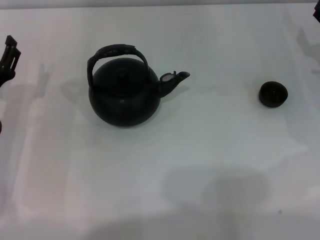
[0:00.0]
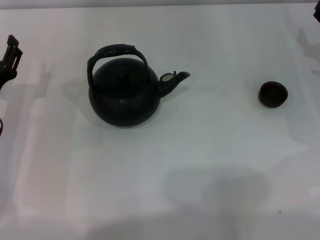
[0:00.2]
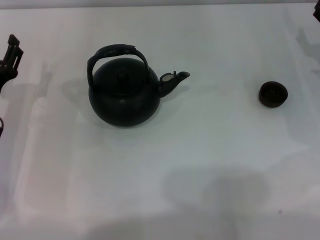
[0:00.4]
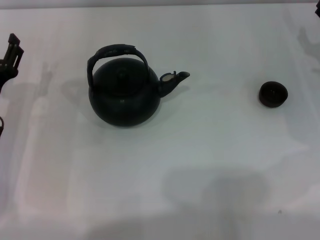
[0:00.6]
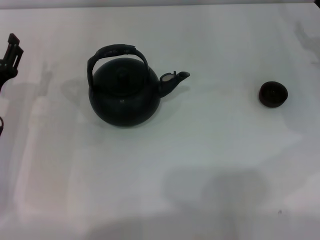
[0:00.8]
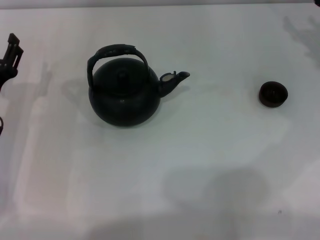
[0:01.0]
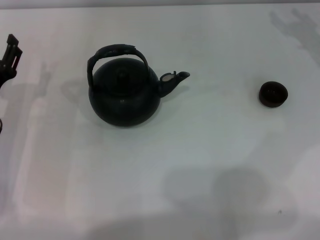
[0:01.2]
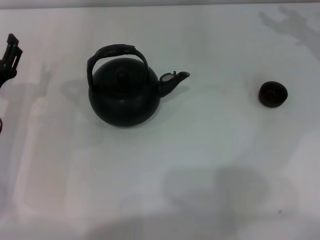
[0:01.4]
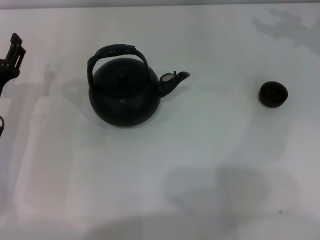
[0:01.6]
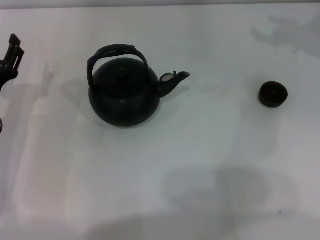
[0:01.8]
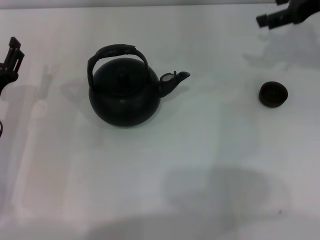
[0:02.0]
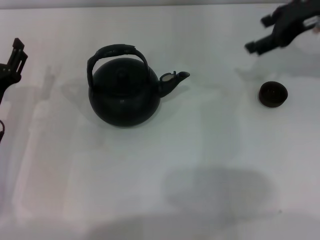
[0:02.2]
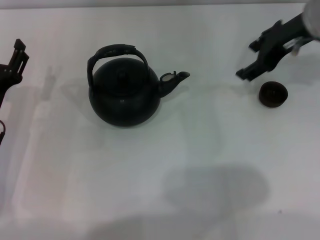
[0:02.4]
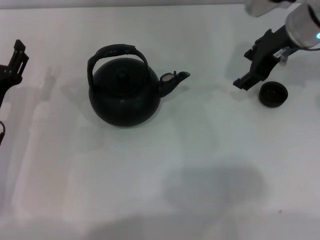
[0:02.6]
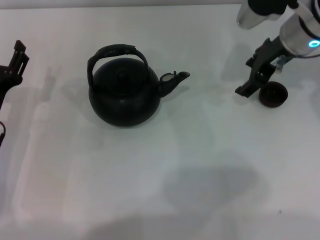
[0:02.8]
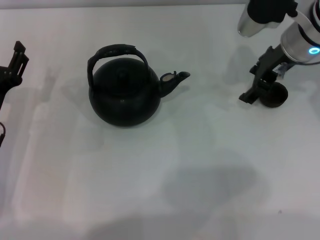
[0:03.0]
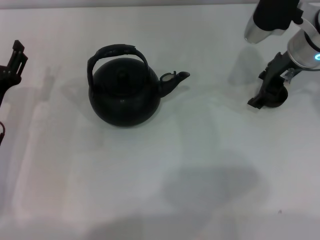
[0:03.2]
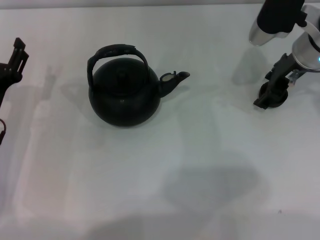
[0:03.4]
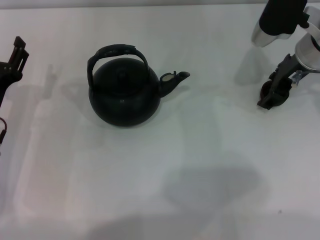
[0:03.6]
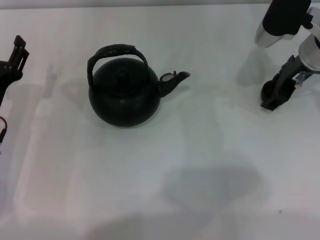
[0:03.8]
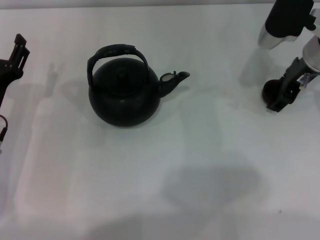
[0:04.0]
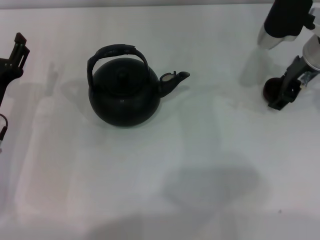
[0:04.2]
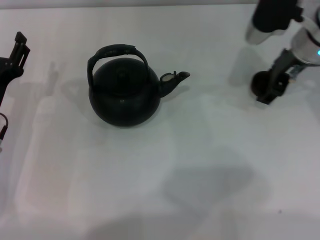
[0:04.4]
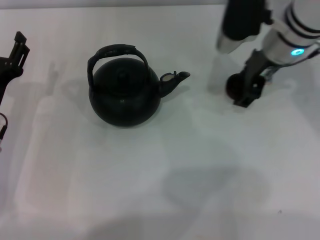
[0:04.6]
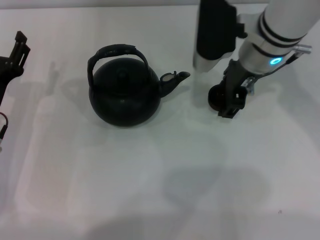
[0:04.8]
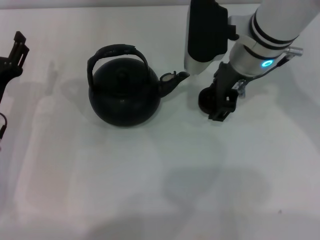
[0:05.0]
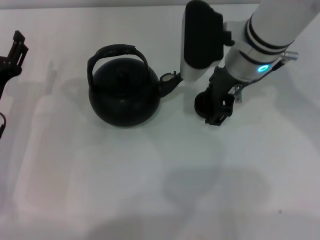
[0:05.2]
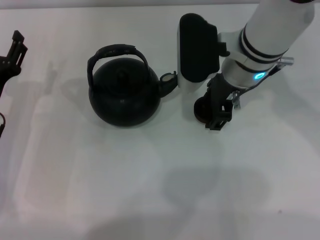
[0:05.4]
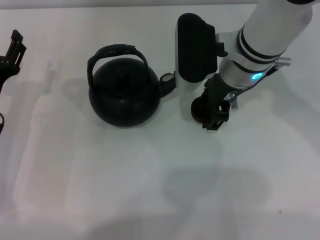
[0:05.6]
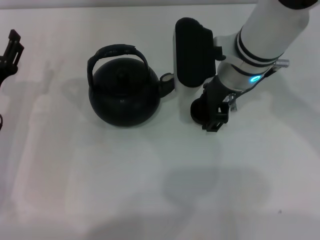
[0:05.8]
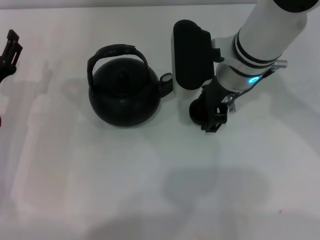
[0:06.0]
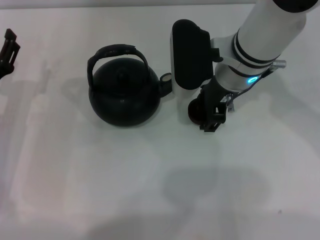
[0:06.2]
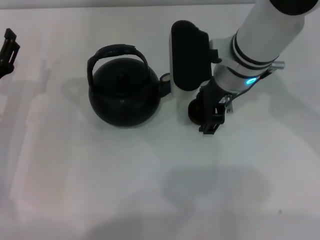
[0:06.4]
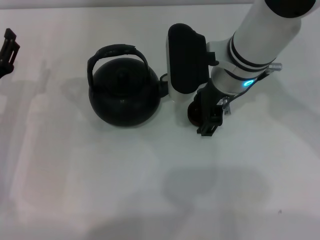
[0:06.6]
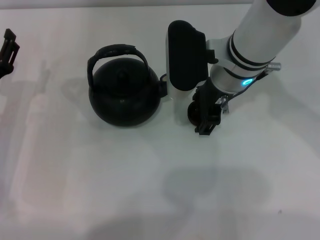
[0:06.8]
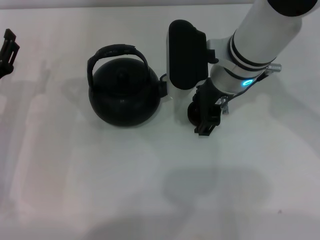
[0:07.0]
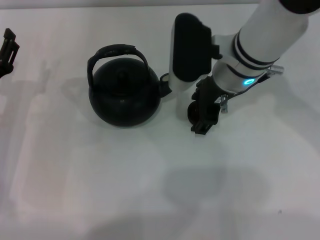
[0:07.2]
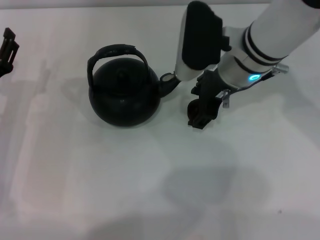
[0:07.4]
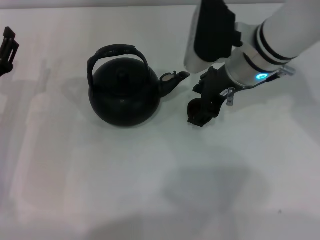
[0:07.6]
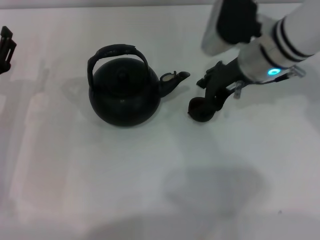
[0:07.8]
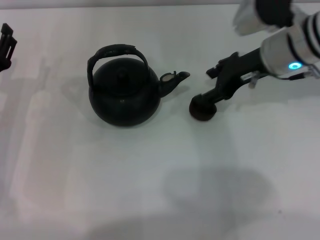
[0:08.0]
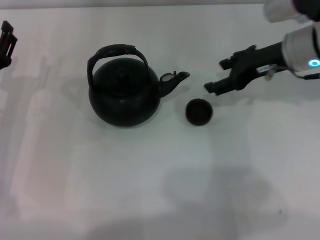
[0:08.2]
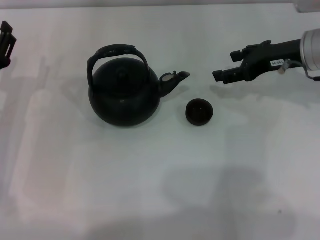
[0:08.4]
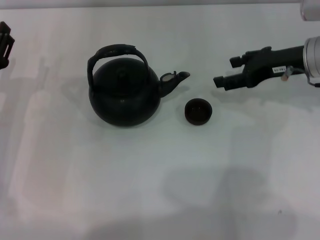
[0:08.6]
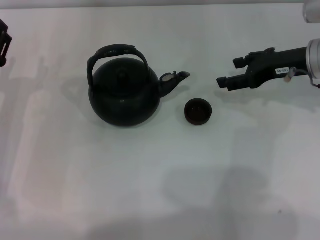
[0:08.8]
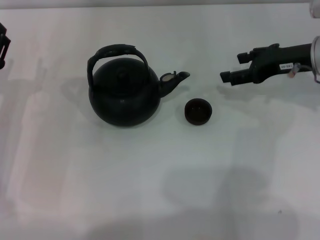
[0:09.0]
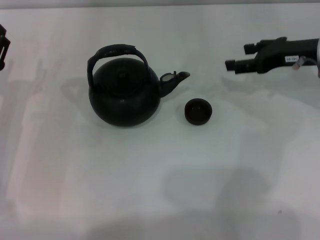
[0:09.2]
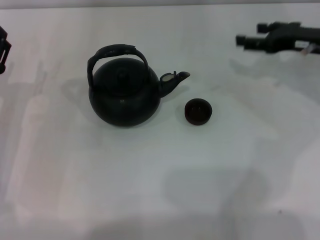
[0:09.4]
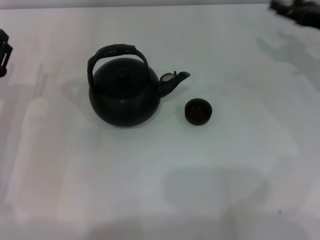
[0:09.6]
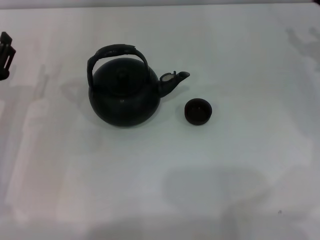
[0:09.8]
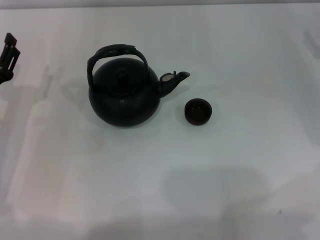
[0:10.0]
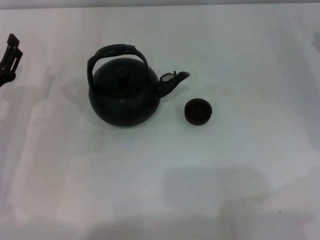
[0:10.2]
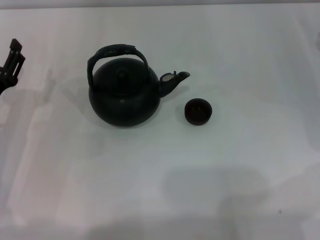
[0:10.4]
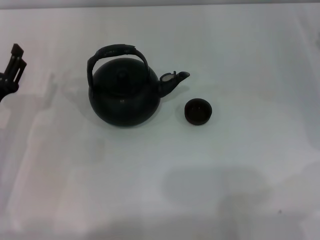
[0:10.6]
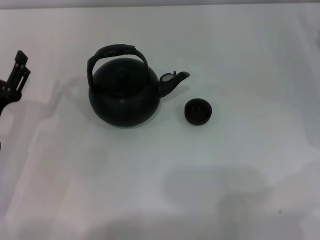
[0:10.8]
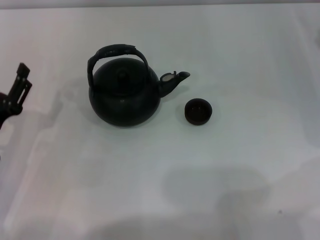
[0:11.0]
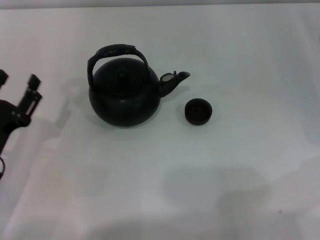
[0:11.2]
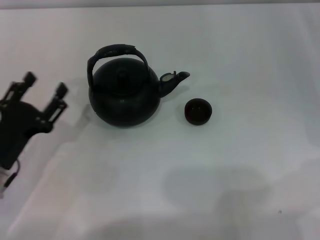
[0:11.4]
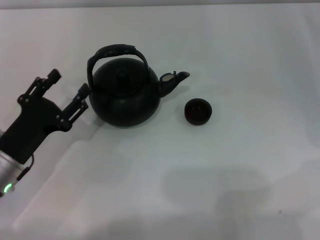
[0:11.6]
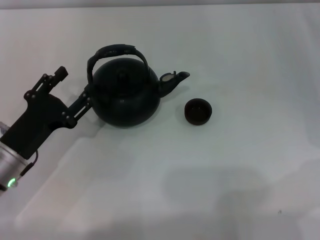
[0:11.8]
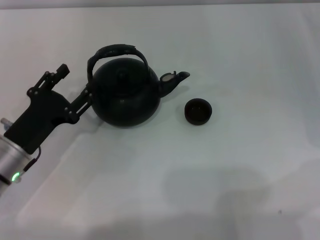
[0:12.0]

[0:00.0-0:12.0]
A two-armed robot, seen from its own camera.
Task of the whole recording: Grasp the handle of the teapot with one hand and pour tea into the teacup.
Step, 0:00.0 to 0:04.6: Pick up the teacup with the right gripper.
Step, 0:05.0 to 0:07.6: Place the teacup in the center of view with the right gripper.
0:01.6 to 0:03.0: The right gripper is displaced to the left by roughly 15 cm.
0:03.0 to 0:04.4: The grippers move only a little.
0:04.4 to 0:06.0: The right gripper shifts roughly 10 cm to the left.
0:06.0 to 0:07.6: The grippers make only small movements.
0:07.6 to 0:09.0: The right gripper moves to the right, about 15 cm.
0:09.0 to 0:10.4: The right gripper travels to the right and downward by some 10 cm.

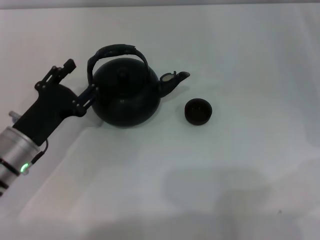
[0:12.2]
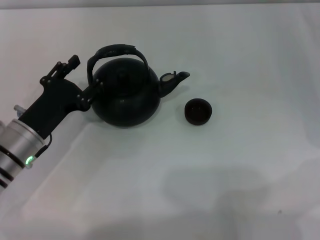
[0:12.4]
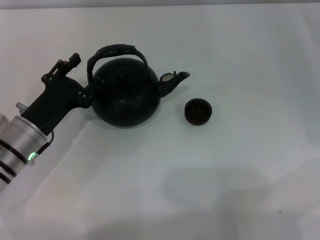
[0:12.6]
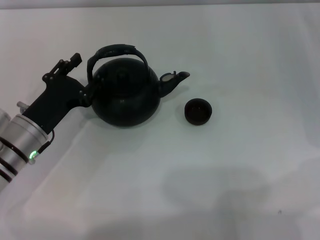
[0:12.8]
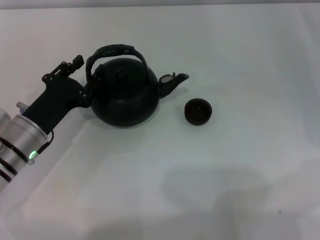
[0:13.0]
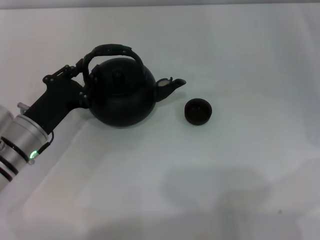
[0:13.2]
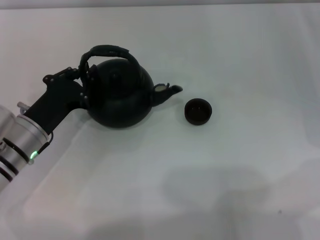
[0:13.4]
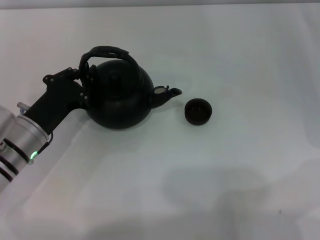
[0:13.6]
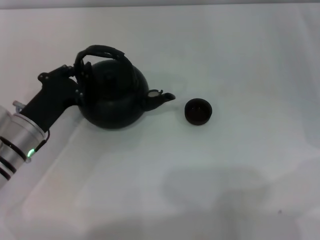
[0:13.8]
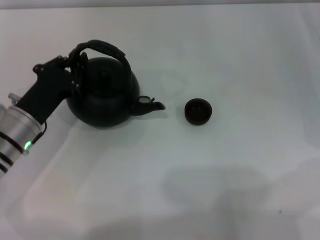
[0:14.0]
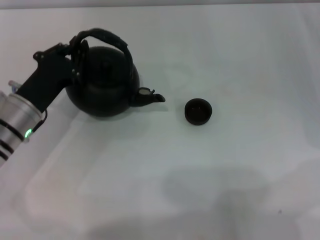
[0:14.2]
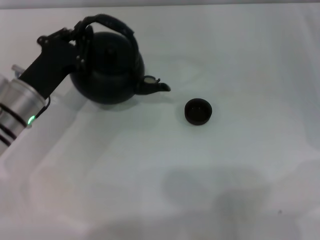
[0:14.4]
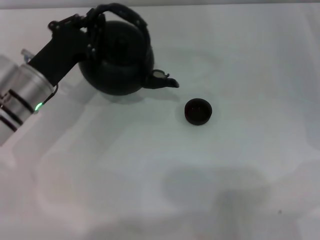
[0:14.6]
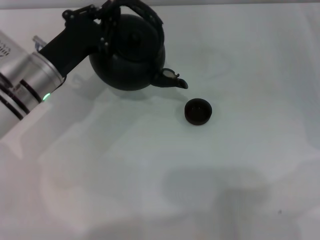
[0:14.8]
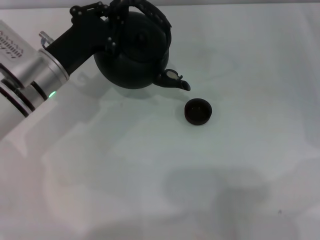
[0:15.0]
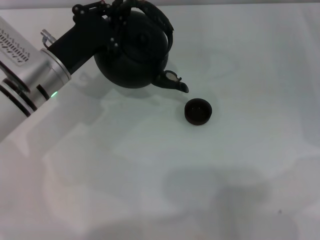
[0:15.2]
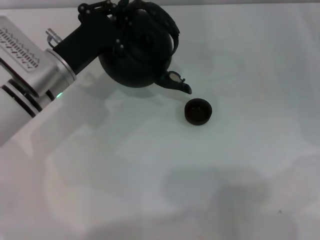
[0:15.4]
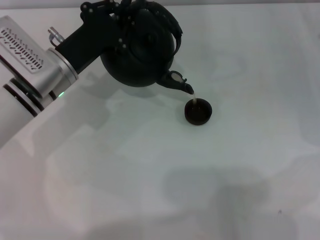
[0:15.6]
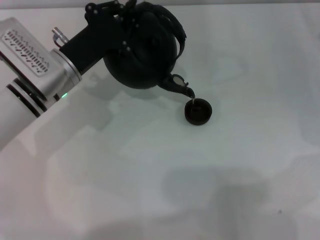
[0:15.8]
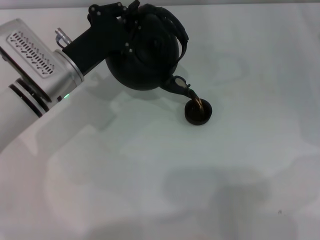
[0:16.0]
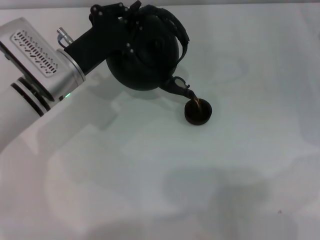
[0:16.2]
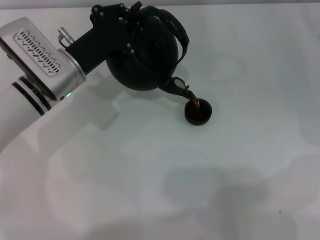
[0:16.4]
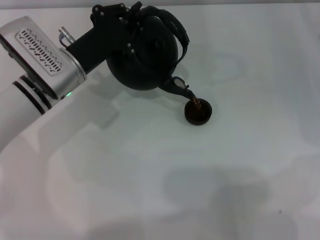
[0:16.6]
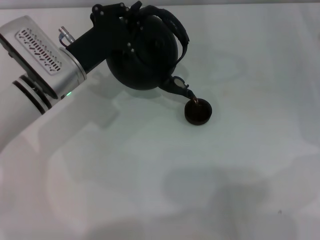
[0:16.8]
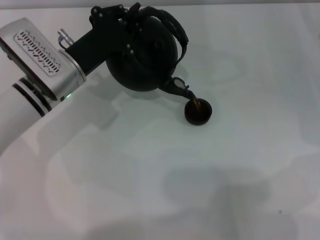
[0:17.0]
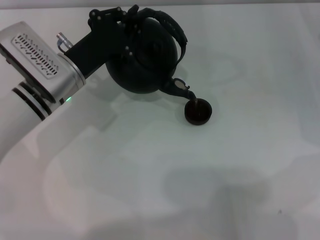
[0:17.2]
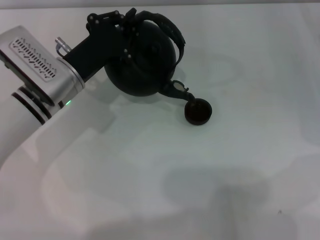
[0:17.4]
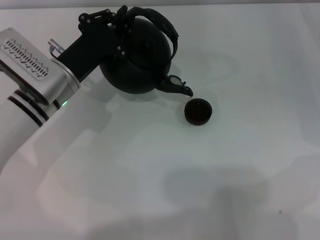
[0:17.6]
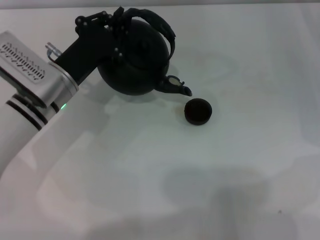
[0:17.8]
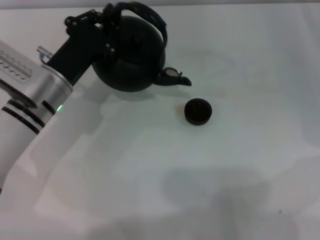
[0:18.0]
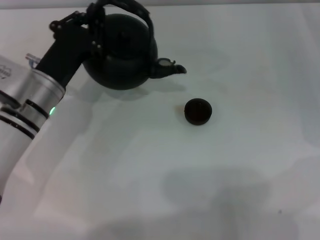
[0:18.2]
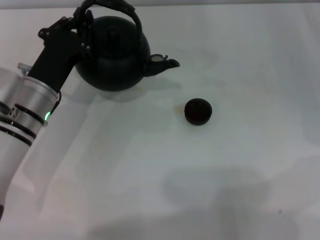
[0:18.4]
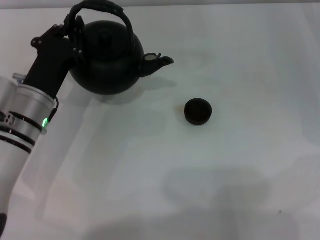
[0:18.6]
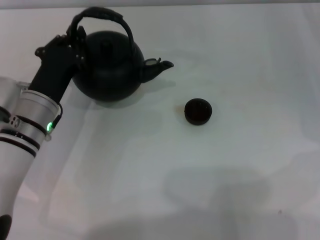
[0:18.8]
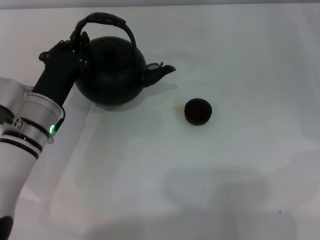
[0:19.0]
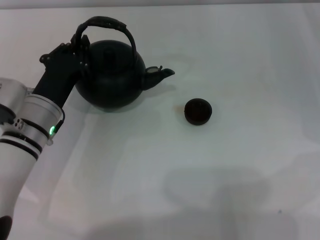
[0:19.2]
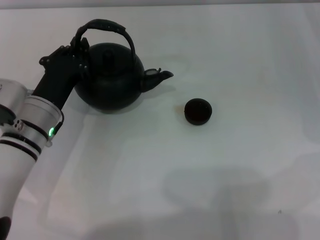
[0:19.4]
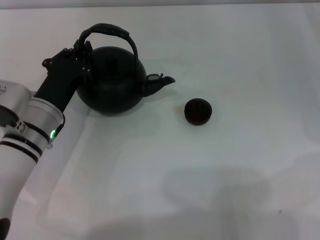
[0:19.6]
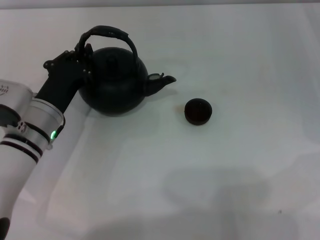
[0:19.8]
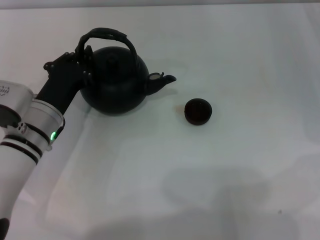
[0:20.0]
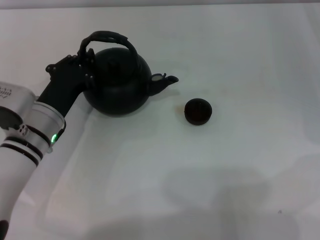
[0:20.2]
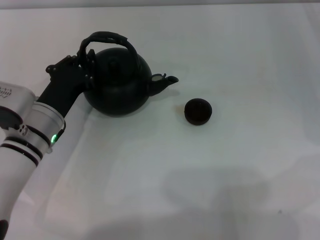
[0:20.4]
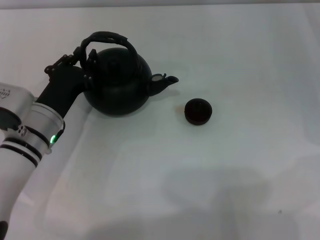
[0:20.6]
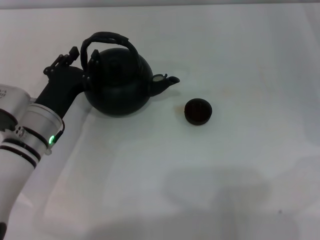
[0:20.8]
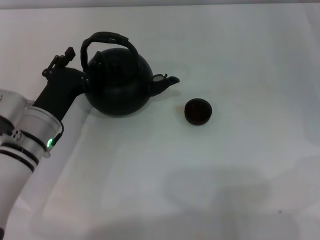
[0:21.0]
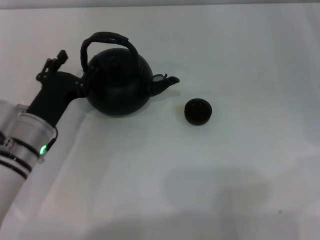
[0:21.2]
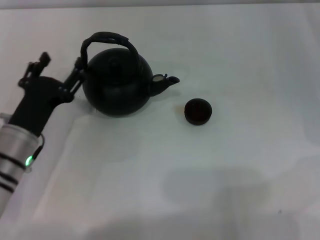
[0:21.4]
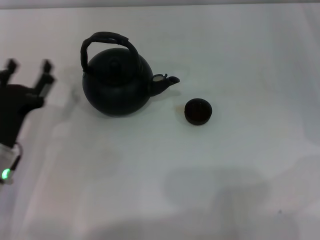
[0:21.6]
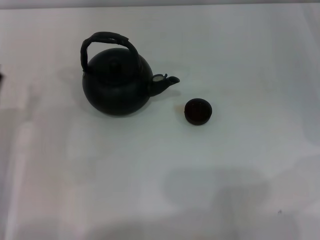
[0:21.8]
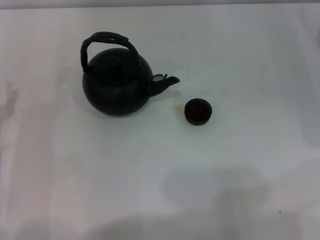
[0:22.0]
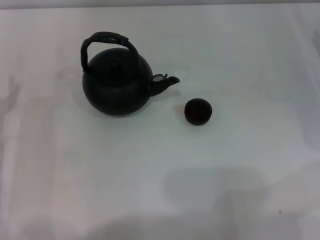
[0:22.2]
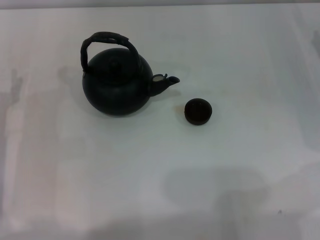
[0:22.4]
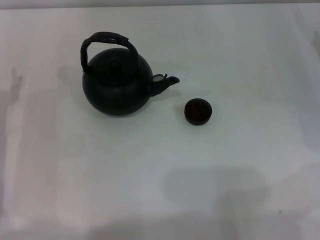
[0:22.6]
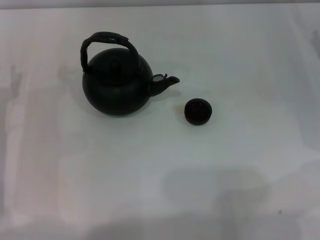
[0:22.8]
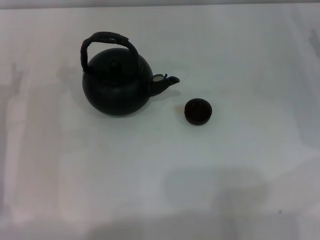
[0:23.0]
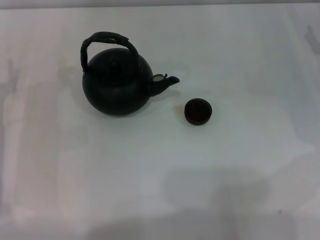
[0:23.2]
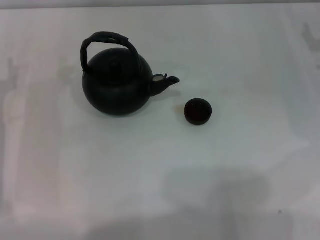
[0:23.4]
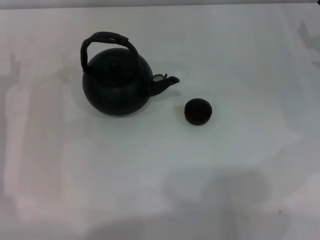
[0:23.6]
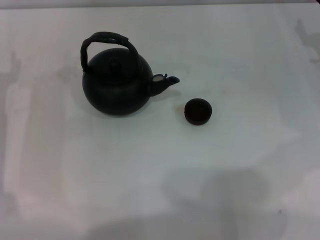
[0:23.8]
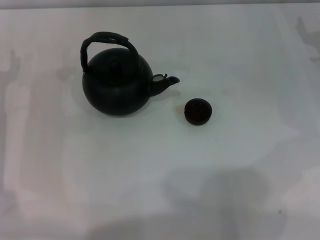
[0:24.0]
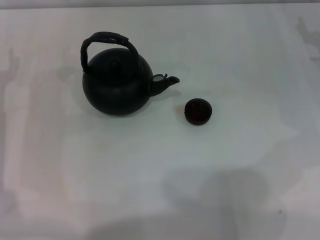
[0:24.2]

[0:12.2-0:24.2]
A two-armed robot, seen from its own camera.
Task of the whole recording: Grasp the handle of the teapot with one hand and pour tea into the teacup.
Step, 0:12.2 to 0:14.4: Pick up the teapot with the left gripper.
Step, 0:14.6 to 0:17.8: Pour tea into the teacup with the left gripper.
Step, 0:18.0 to 0:21.6: Put down the teapot with the left gripper.
0:12.2 to 0:13.8: The left gripper closes its fingers.
0:13.8 to 0:15.2: The left gripper travels forward and upward by some 10 cm.
0:15.2 to 0:16.6: There are only small adjustments of the grippers.
0:18.2 to 0:19.8: The grippers stay close to where they were, moving slightly.
0:19.8 to 0:21.2: The left gripper opens.
0:21.2 to 0:22.6: The left gripper heads to the left, covering approximately 10 cm.
